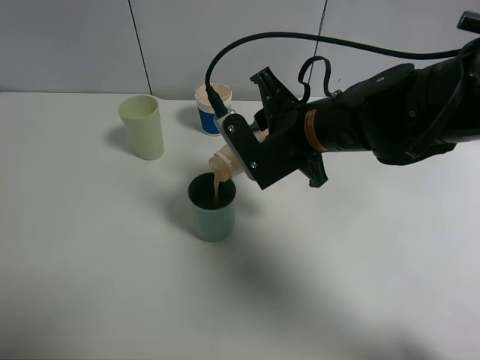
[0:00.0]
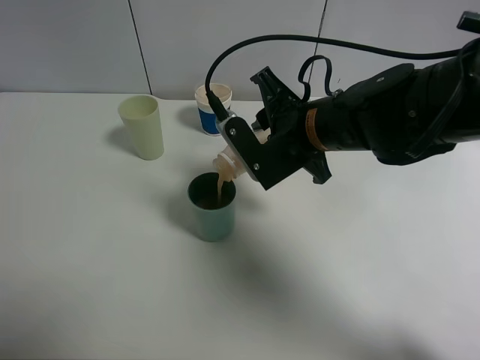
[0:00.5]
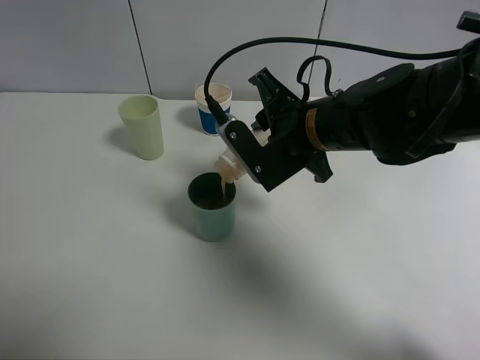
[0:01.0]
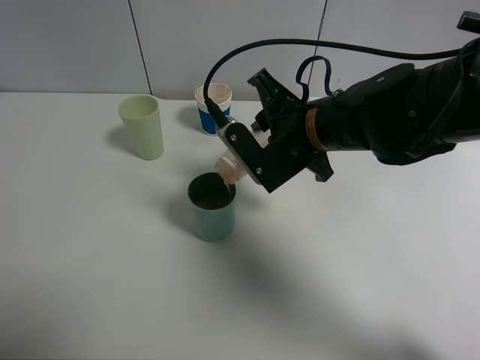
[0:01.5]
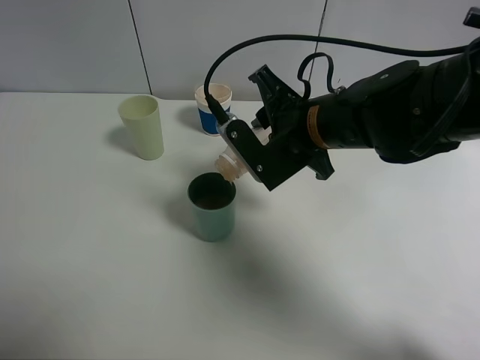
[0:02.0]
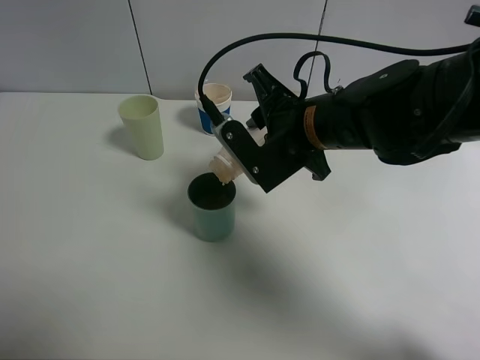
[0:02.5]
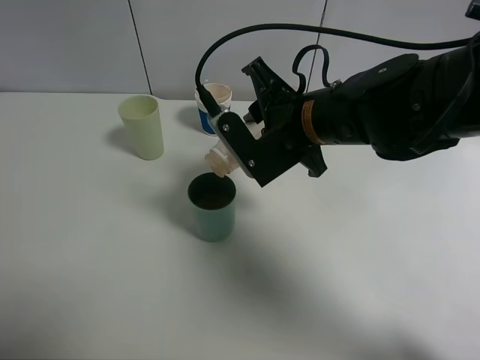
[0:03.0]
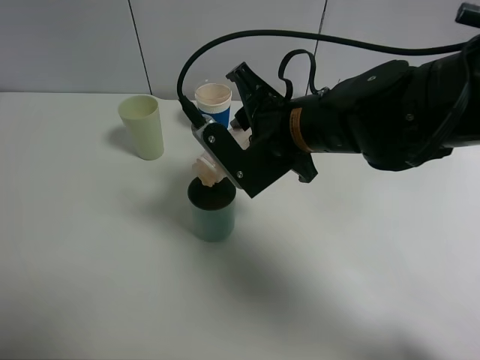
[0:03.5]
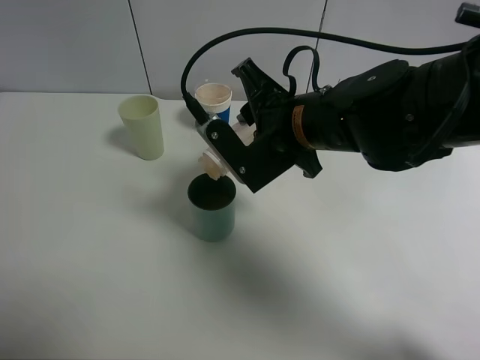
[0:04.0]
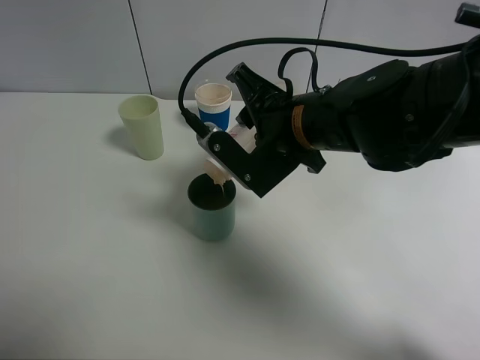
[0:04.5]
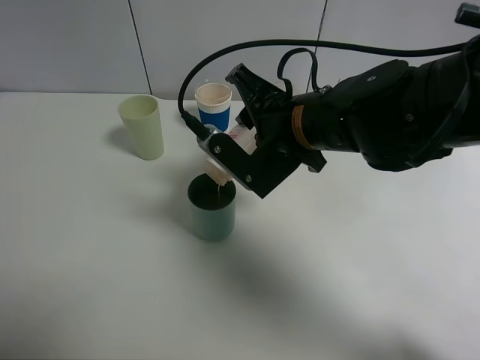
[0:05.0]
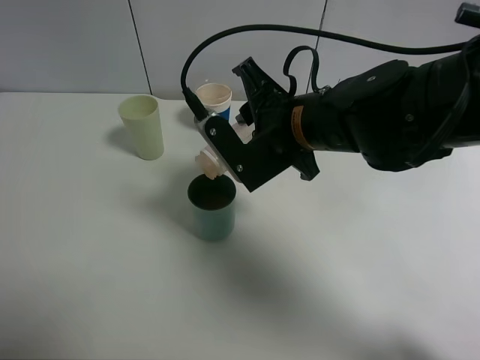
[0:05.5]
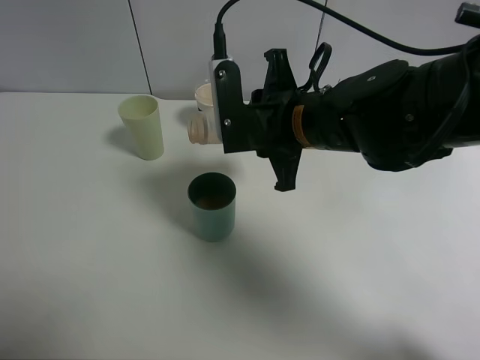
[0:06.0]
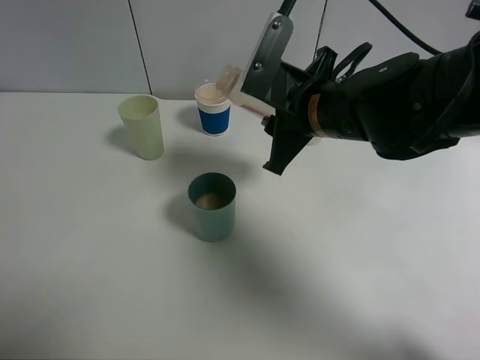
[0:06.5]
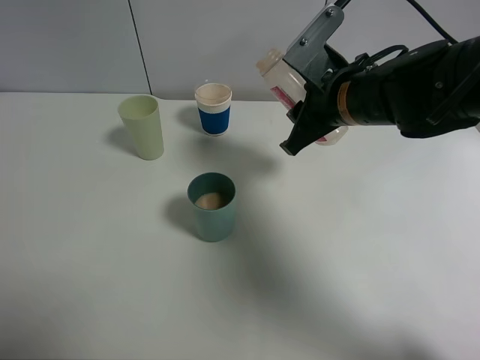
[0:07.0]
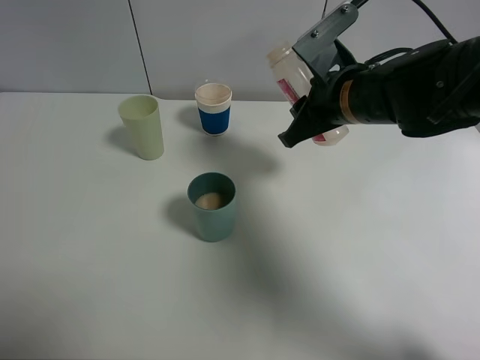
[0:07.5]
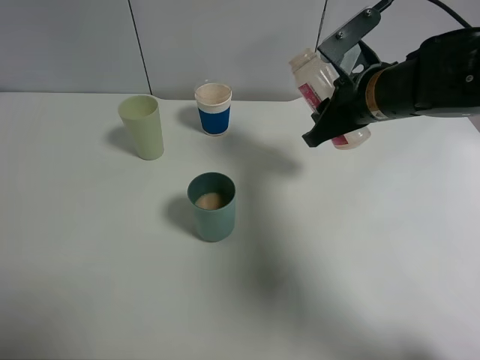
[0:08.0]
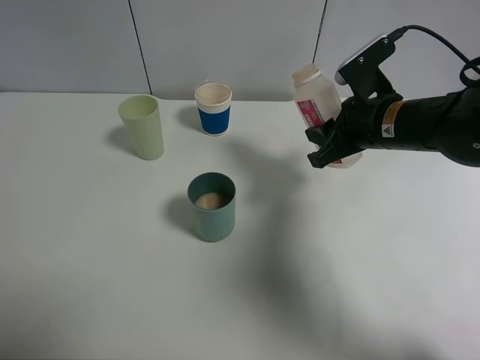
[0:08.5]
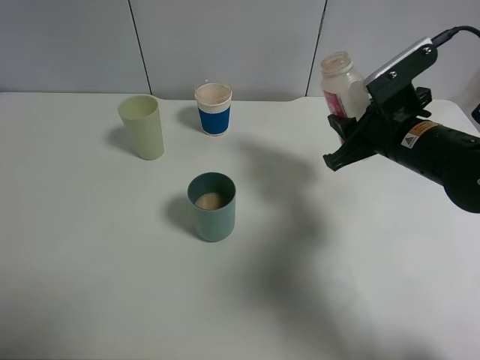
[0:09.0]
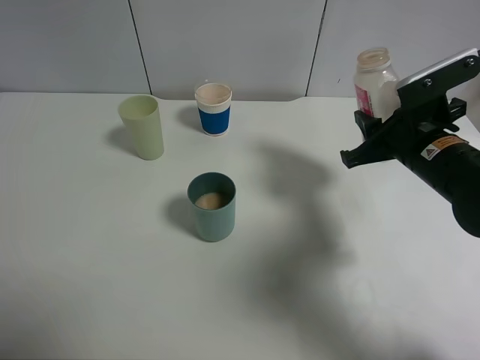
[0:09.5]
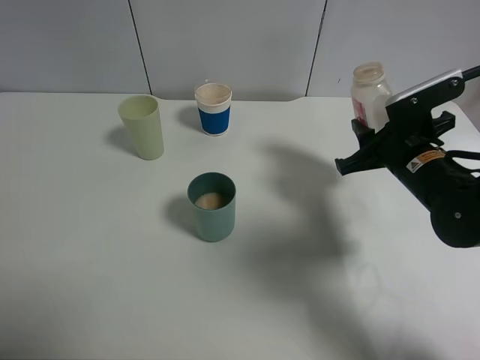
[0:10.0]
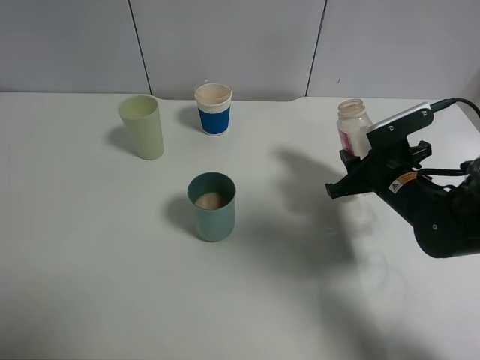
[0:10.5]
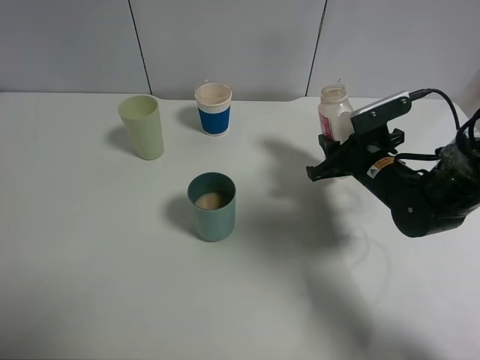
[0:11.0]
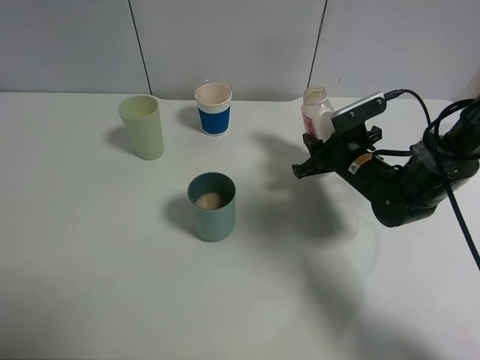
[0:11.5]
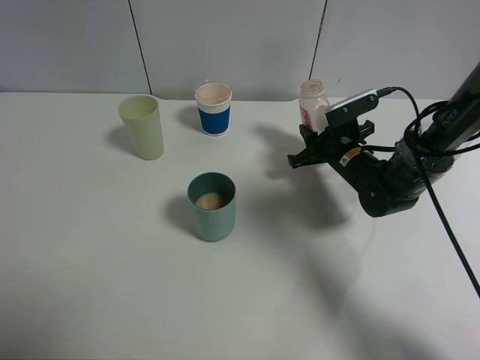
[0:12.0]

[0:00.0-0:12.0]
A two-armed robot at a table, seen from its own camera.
Task of the whole recording: use a clamp to hold the bottle of the drink, pour the beverage into a random cup, then clamp the cup containing the drink and pour the drink into another random cup.
Step, 0:00.0 to 0:06.0: Pour the drink into the blue plastic cup with right gripper.
0:00.0 to 0:06.0: There are only small adjustments of the grippers.
0:06.0 to 0:08.0: The right gripper moves to the right and forward, about 10 cm.
0:08.0 to 0:10.0: The right gripper travels to the right and downward by roughly 10 cm.
0:10.0 to 0:12.0: The right gripper shifts approximately 10 cm forward and downward.

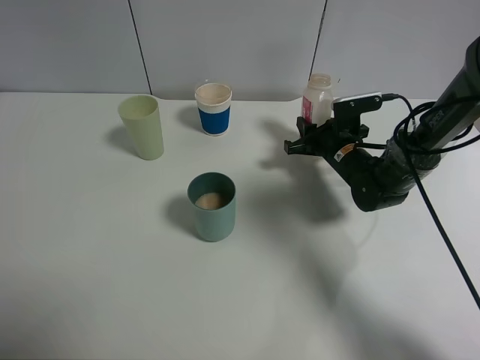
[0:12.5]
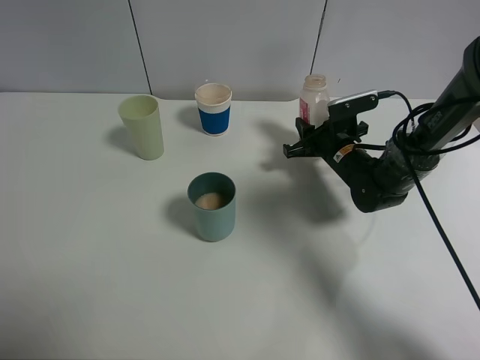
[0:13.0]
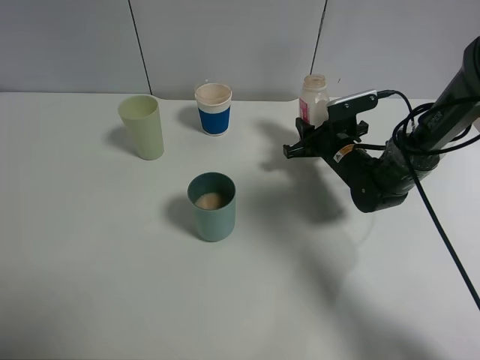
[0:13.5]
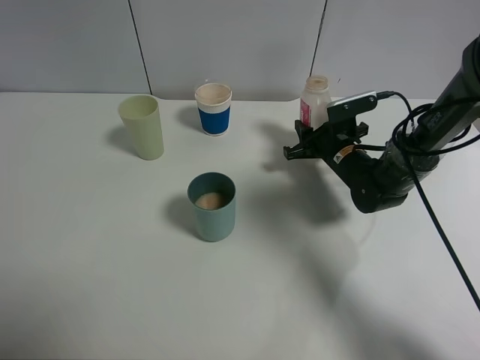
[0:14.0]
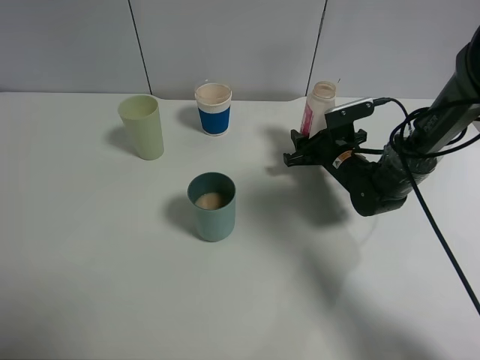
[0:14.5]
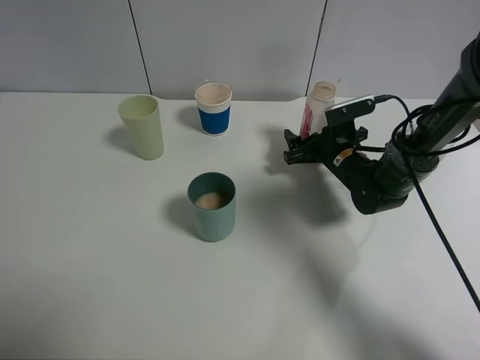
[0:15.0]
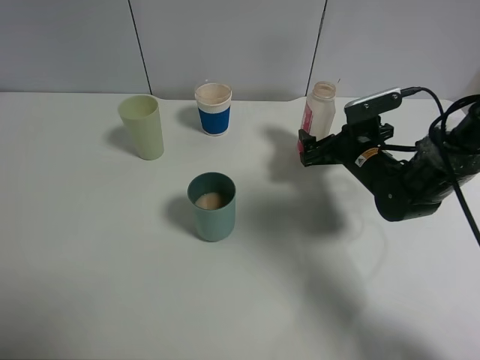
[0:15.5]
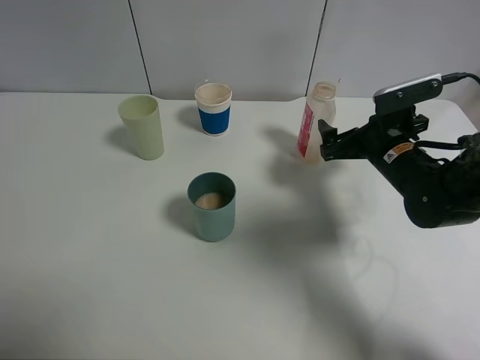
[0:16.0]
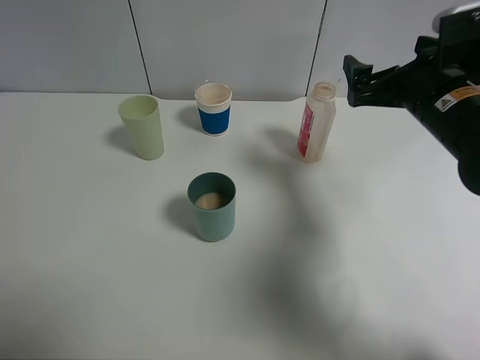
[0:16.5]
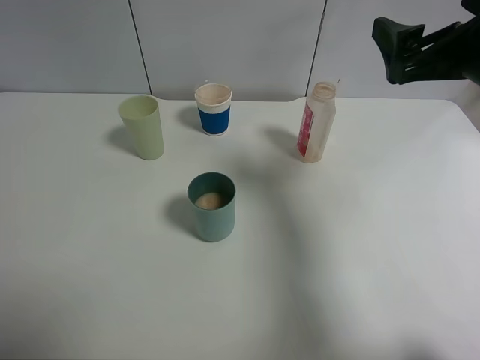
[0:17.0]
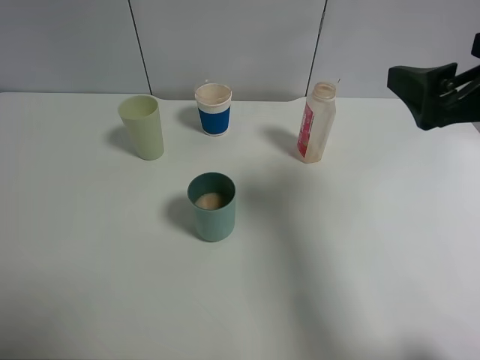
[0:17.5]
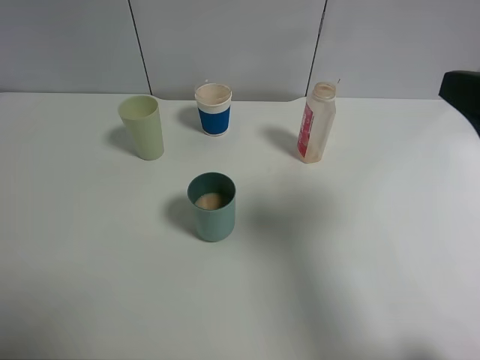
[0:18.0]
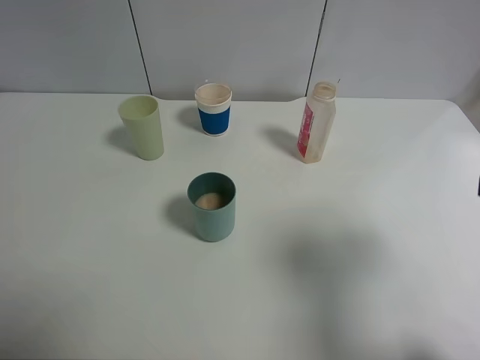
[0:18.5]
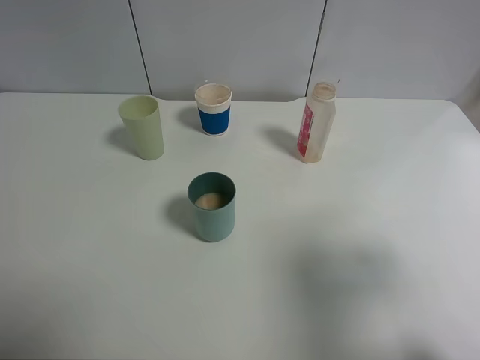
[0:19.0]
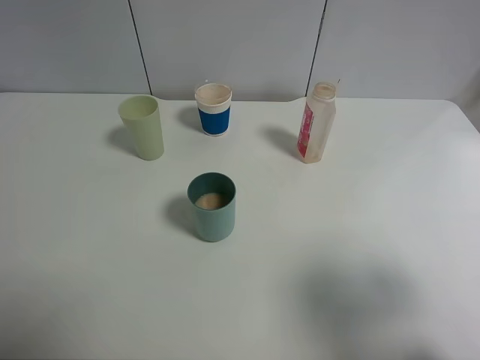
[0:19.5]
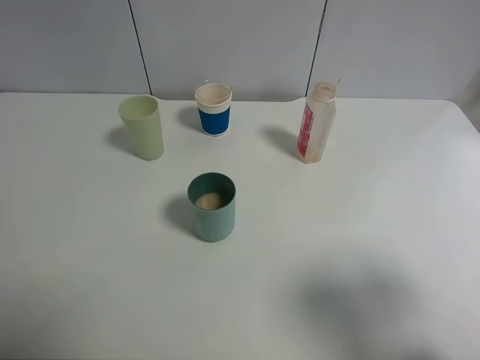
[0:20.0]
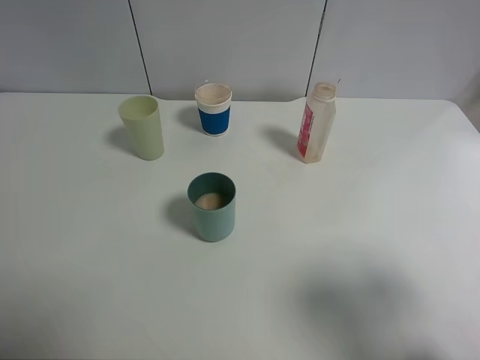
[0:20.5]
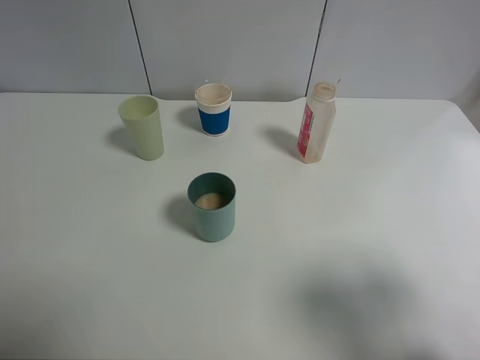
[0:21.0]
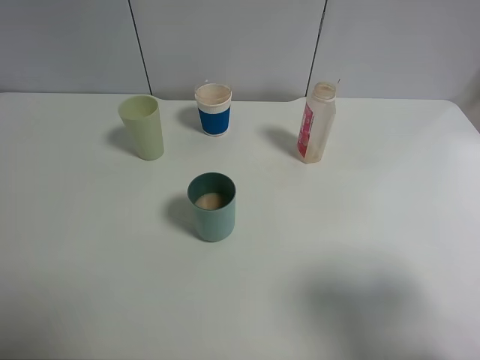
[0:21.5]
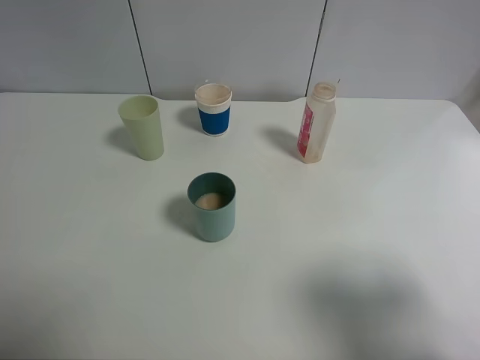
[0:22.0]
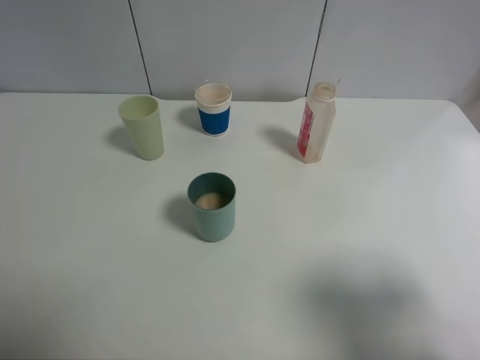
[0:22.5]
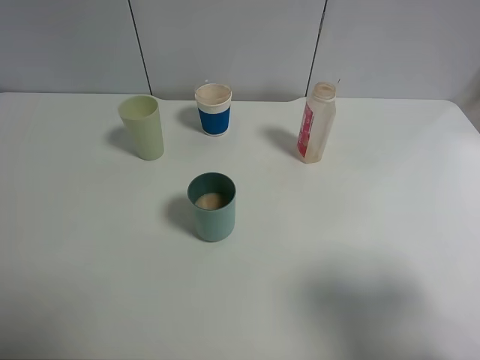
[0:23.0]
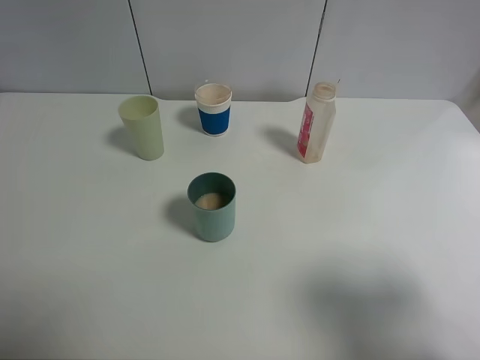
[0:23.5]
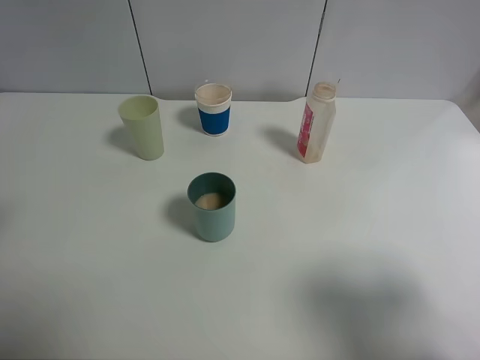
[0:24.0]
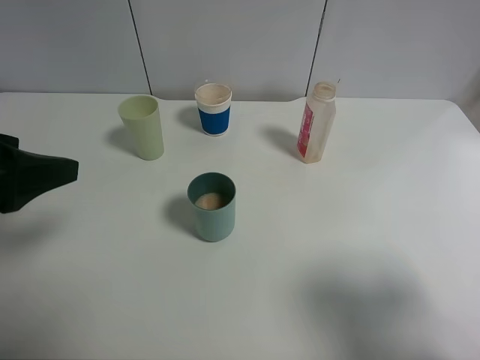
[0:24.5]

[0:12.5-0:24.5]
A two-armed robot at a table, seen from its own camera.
Task of the whole recording: use a clamp to hold the bottle of the drink, pour the beverage into a random cup, then clamp the cup containing the drink and pour the drink into another random cup.
Step, 0:12.5 to 0:15.0: Place the drink bottle on the table with right gripper.
0:12.5 to 0:14.5: There are only small adjustments of the grippers.
0:14.5 to 0:16.5: The right gripper is displaced upward and backward by approximately 20 cm, and opens up.
0:16.5 to 0:18.5: The right gripper shifts about 20 cm backward and upward.
0:18.5 to 0:20.5: The right gripper is displaced backward by about 5 cm.
0:22.5 to 0:24.5: The left gripper moves forward, approximately 15 cm.

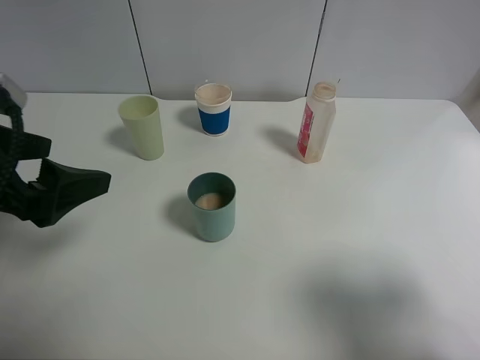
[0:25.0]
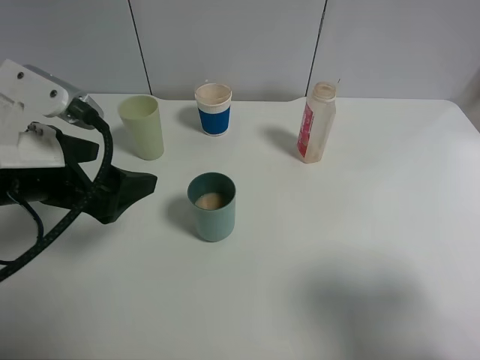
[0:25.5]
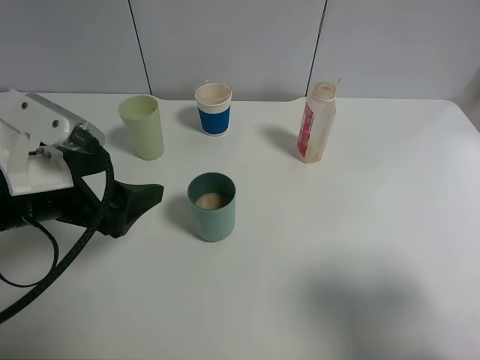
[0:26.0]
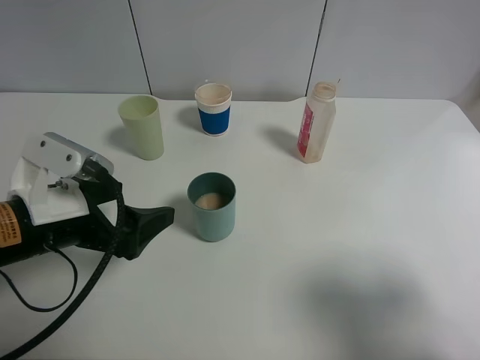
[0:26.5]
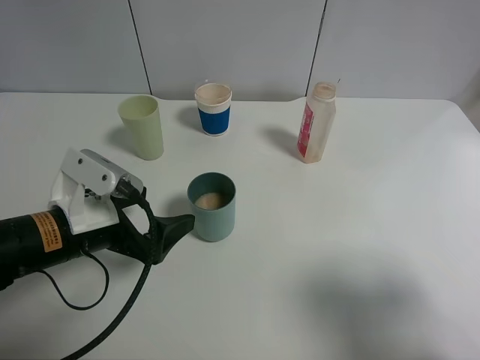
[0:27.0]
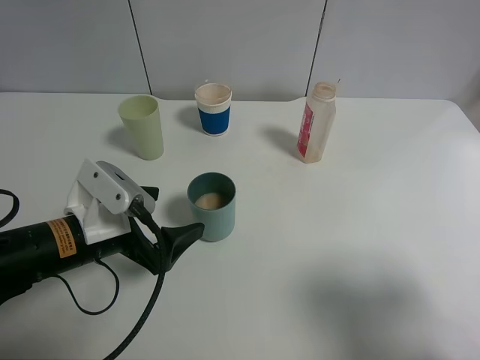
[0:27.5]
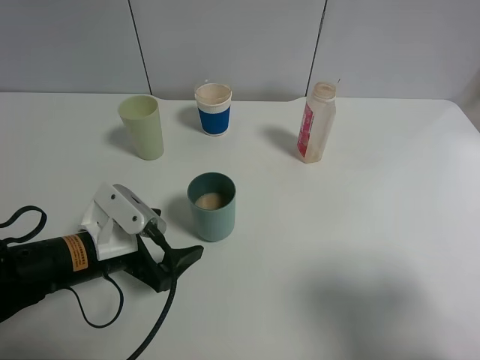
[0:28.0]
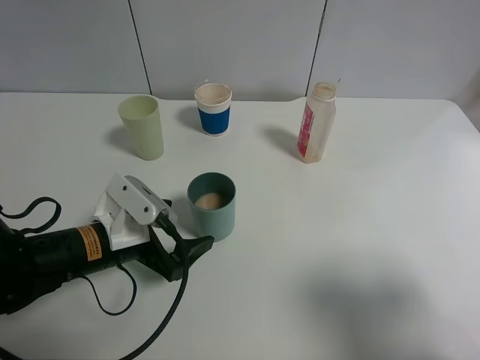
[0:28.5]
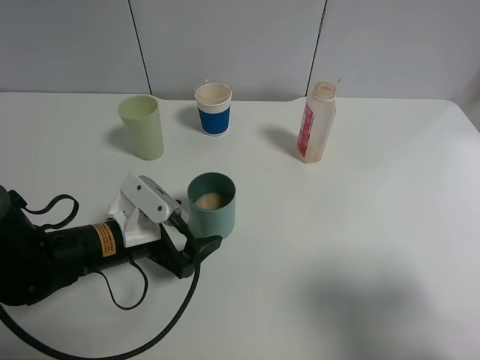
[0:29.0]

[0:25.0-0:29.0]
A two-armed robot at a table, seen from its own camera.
Task of the whole recording: use a clamp to hold the bottle of the drink, pour the beverage into a random cup, then clamp the cup containing the drink and pour the drink into another random cup.
0:25.0 to 0:27.0: The left gripper shifts about 15 cm downward and to the right.
0:27.0 to 0:29.0: The left gripper goes about 5 cm downward.
